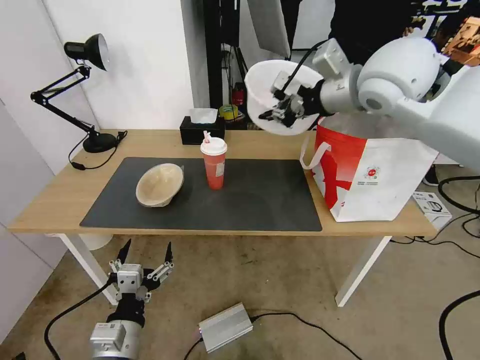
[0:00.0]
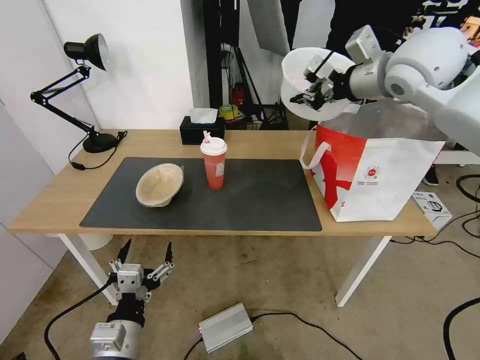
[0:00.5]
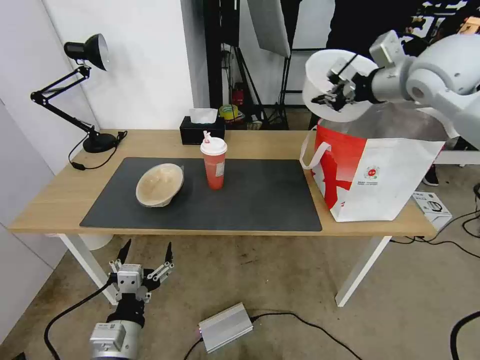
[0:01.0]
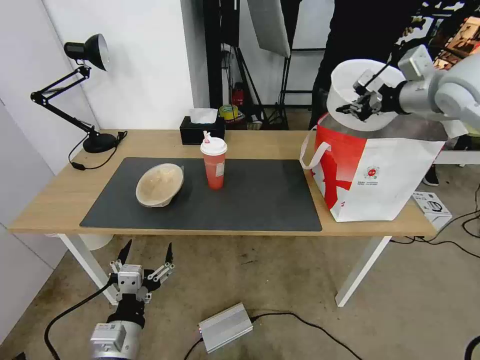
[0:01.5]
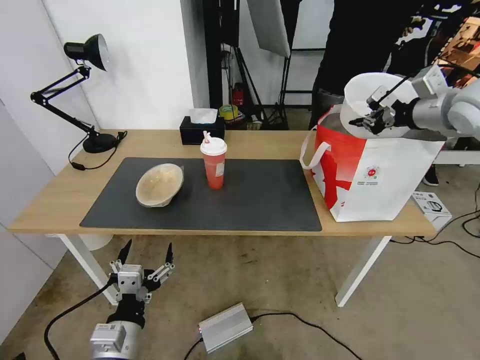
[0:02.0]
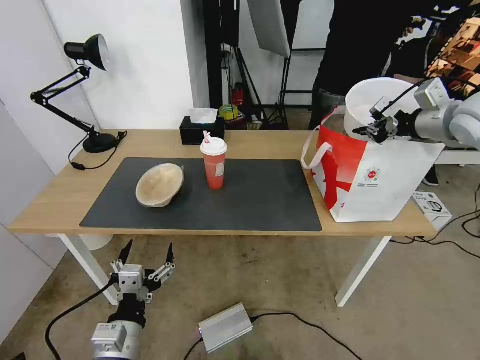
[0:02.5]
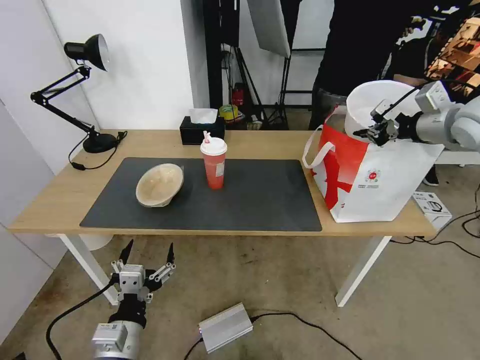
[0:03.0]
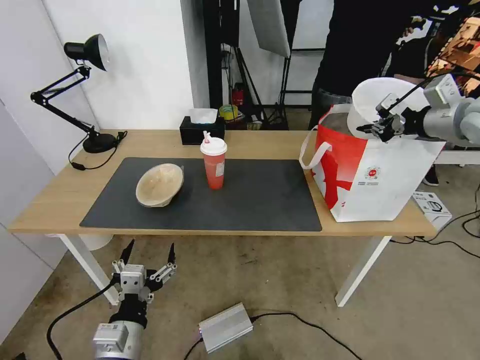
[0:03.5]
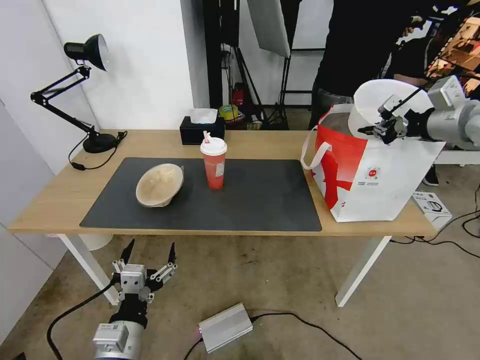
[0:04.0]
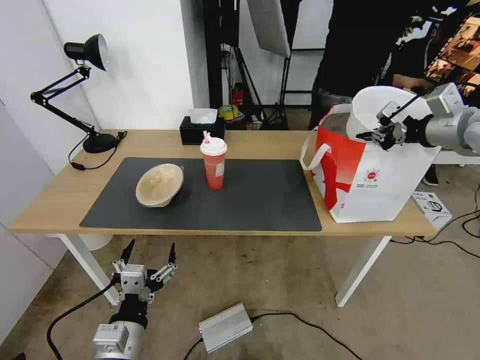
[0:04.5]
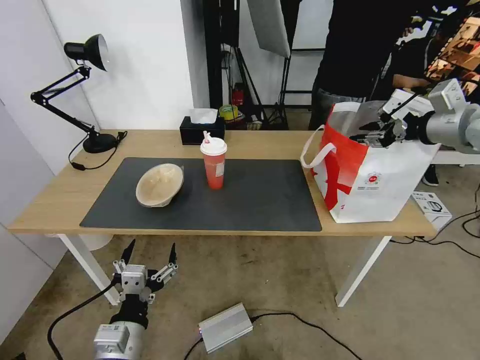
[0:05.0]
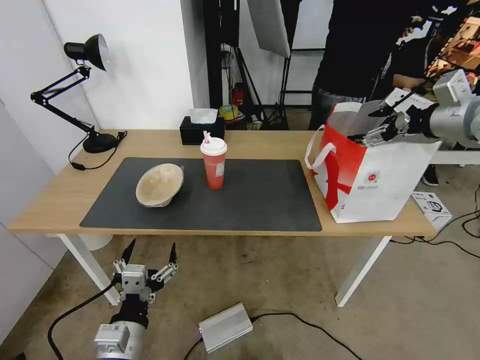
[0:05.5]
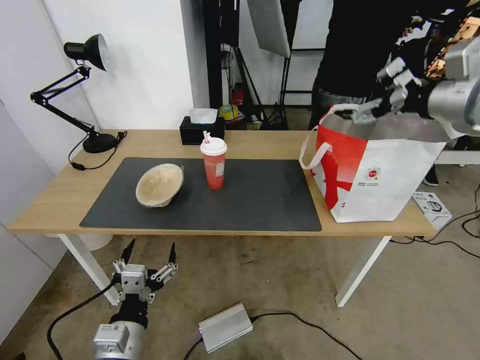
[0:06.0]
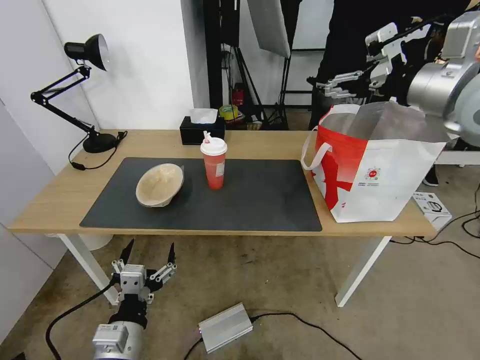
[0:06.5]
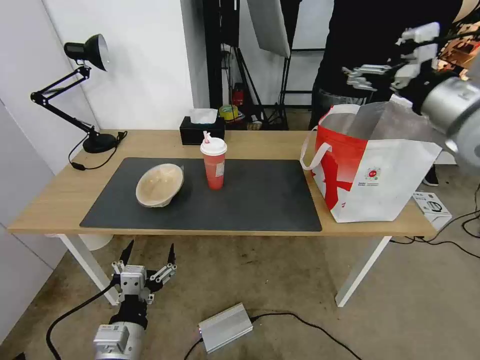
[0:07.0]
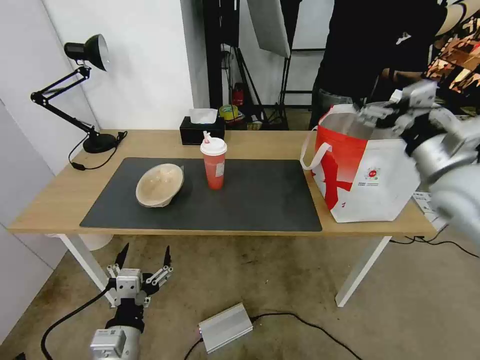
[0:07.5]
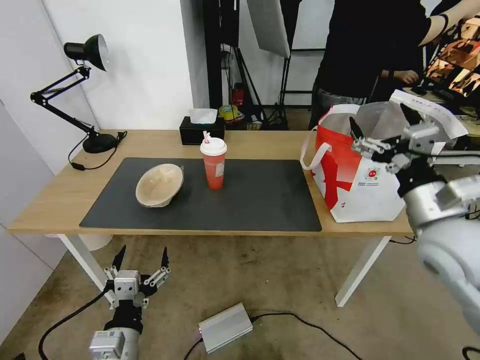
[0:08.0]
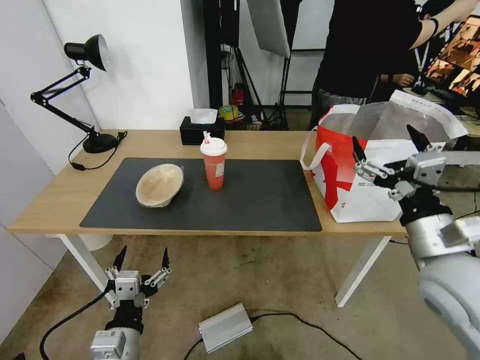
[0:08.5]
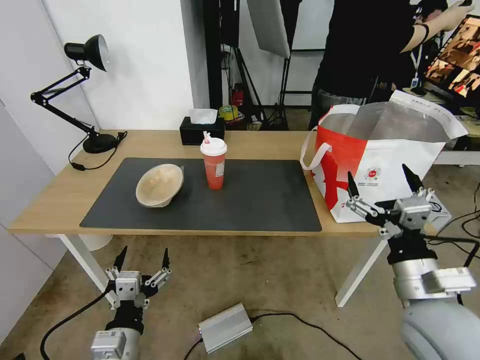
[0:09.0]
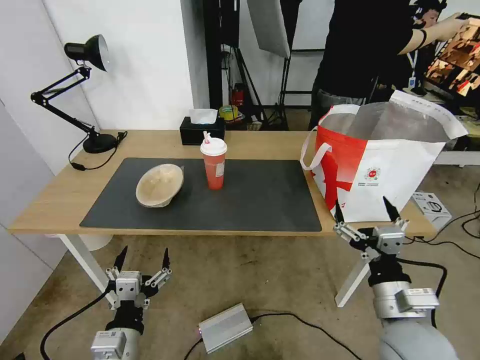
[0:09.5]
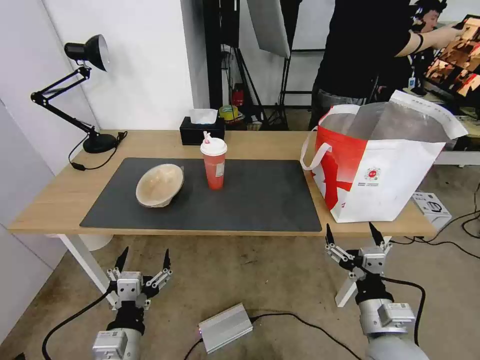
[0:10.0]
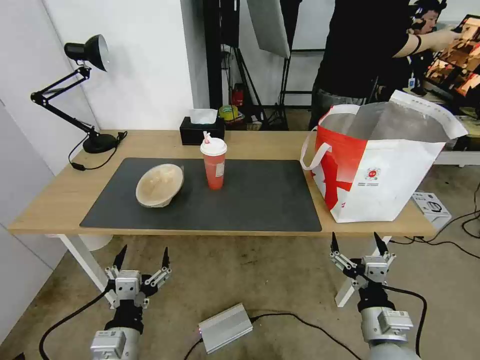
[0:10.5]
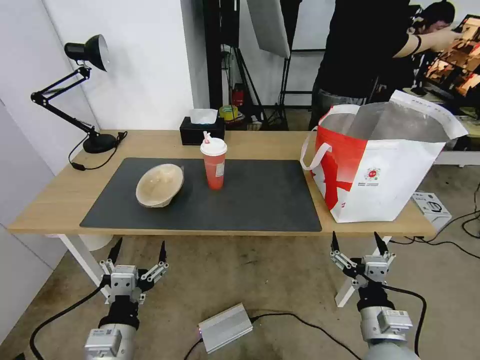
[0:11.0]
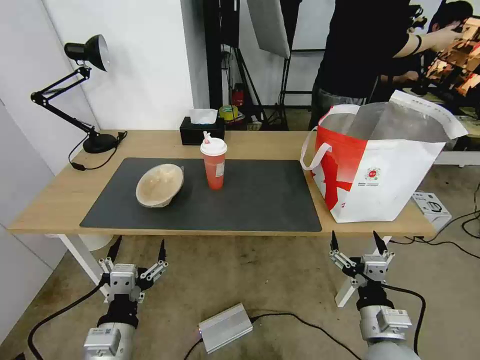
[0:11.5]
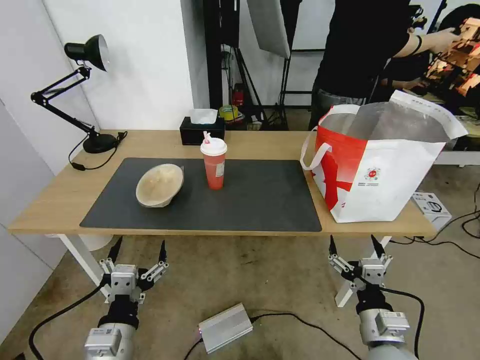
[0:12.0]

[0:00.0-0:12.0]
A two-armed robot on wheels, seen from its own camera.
Task of the whole recording: Pick up the trash from the table and place it into the takeout bag.
0.0 to 2.0 s: The right gripper goes roughly 20 cm to the right.
2.0 to 4.0 s: The grippers stay close to where they were, moving slightly.
4.0 to 6.0 s: The right gripper ends up some 5 cm from where it was, and opens.
6.0 to 8.0 s: The right gripper is displaced downward and backward by approximately 20 cm.
8.0 to 10.0 s: The right gripper shifts roughly 20 cm downward and backward.
10.0 to 12.0 s: The grippers move only a little.

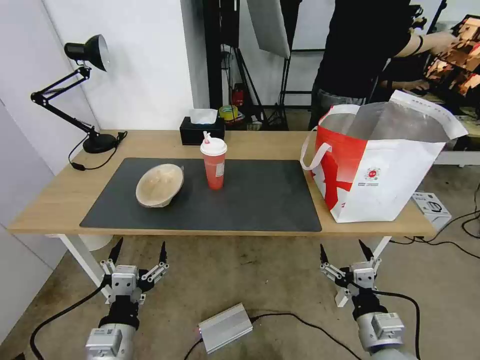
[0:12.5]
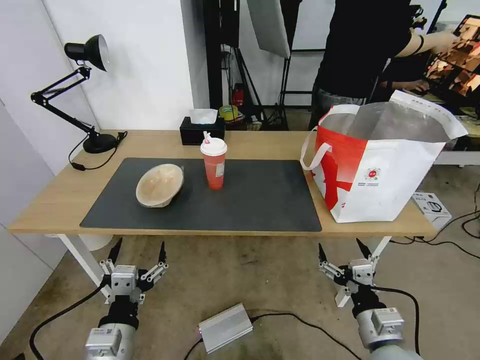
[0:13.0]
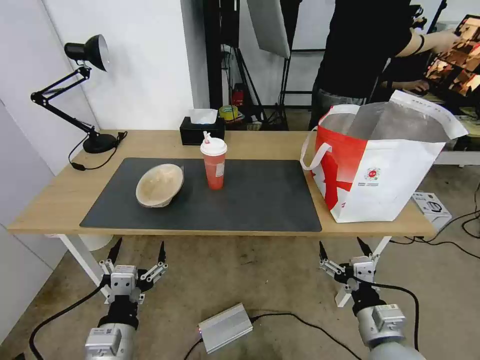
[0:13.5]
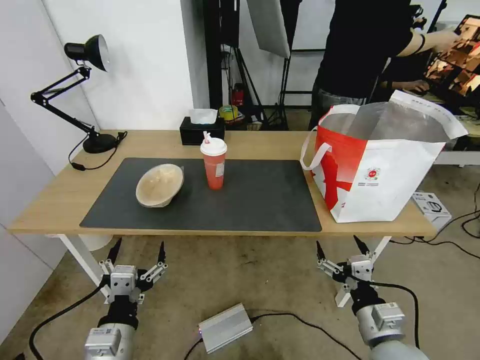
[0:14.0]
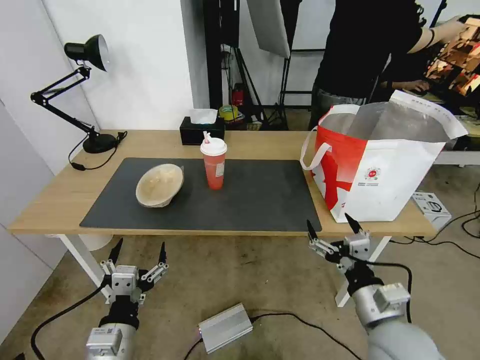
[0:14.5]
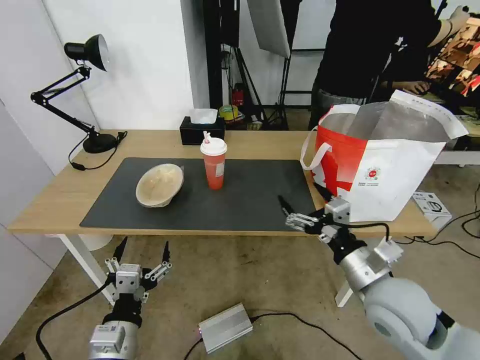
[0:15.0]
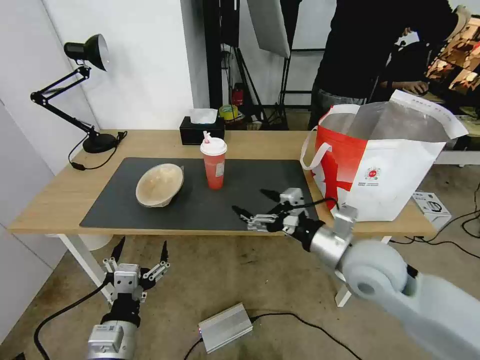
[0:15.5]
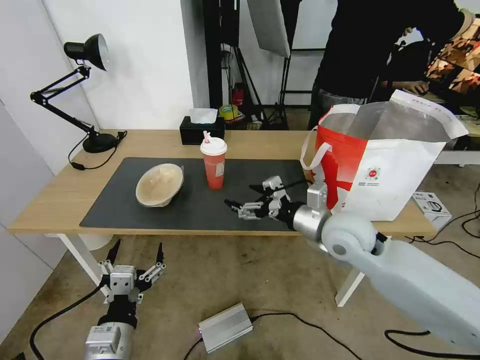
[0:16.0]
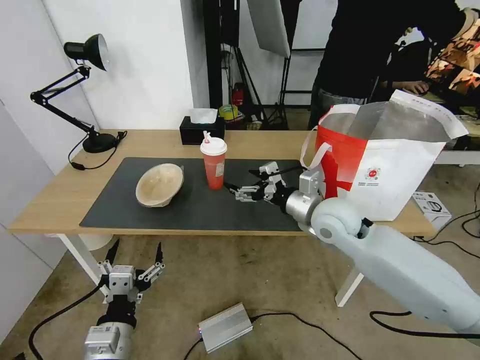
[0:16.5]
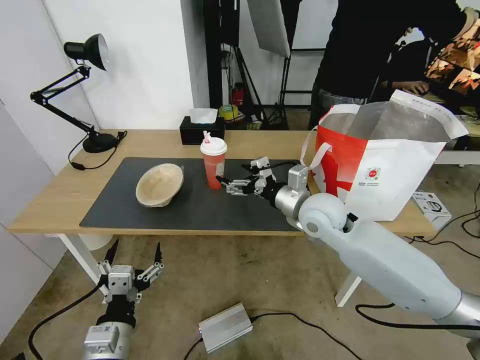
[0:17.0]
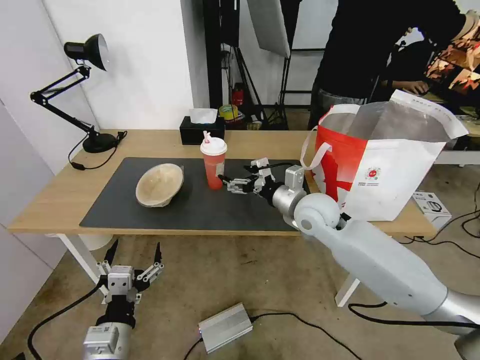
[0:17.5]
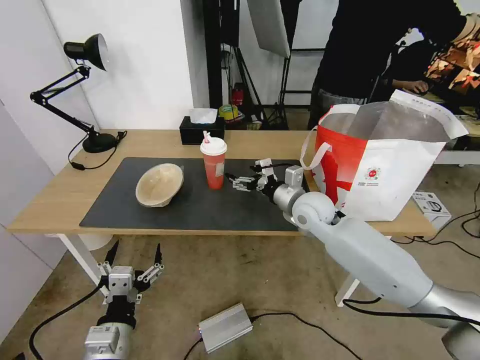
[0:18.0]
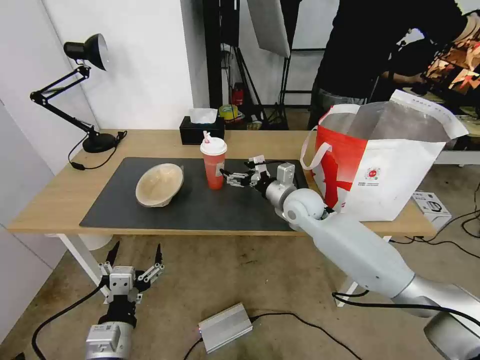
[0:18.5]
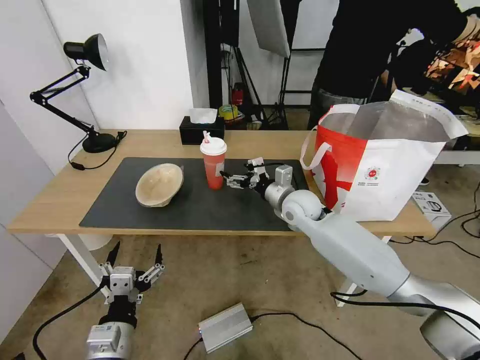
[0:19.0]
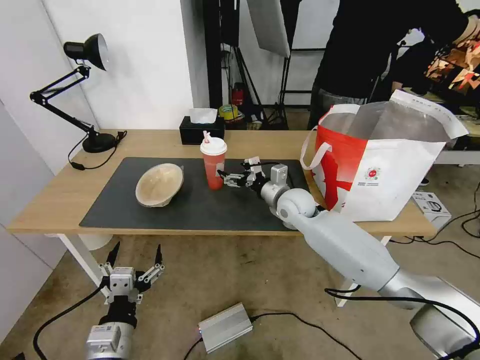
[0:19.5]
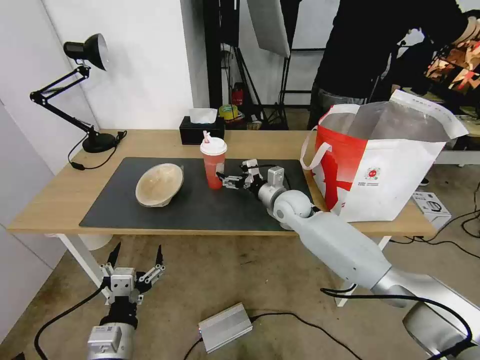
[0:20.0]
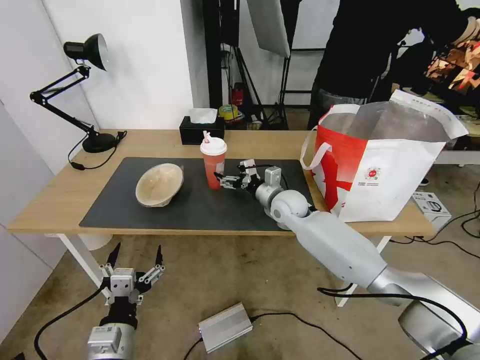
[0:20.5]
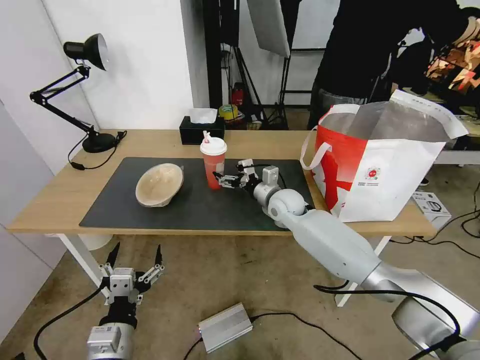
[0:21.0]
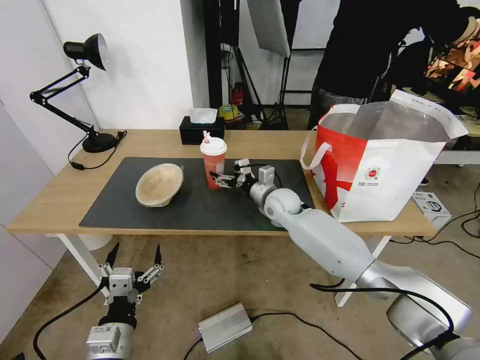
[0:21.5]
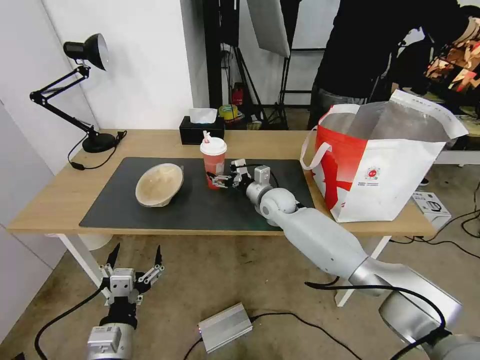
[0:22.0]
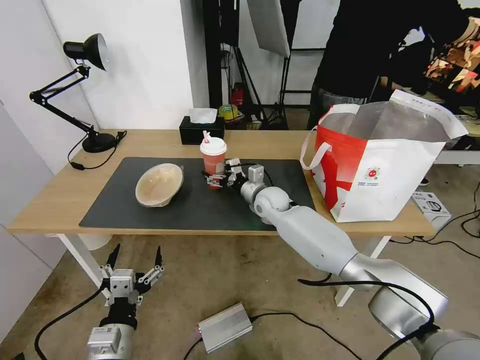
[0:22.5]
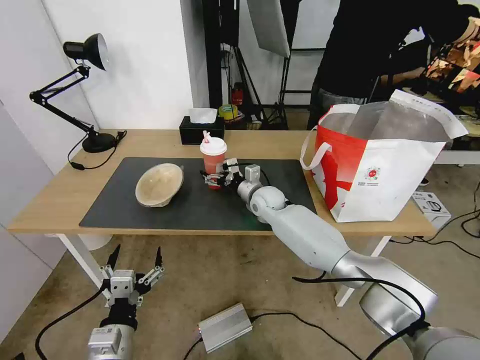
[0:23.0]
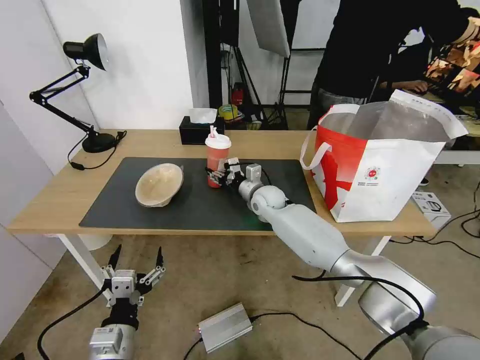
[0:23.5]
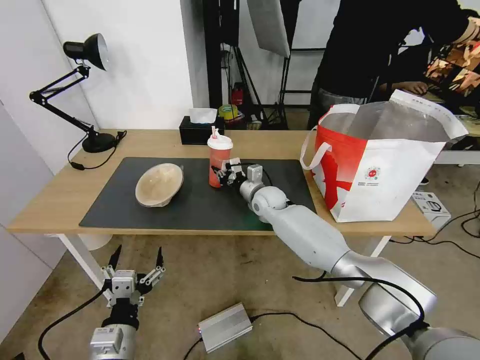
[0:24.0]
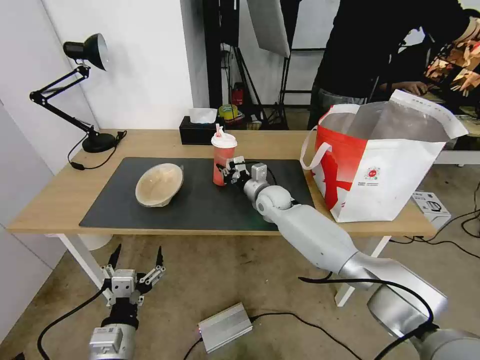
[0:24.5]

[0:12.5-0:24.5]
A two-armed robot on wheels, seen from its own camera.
Task of the whole recording: Pick up the trash from the table and place it into the takeout bag.
12.5 to 14.5 s: The right gripper is displaced upward by roughly 5 cm.
14.5 to 16.5 s: The right gripper moves forward, some 20 cm.
16.5 to 18.5 s: The right gripper moves forward and downward, roughly 10 cm.
18.5 to 20.5 s: The right gripper moves roughly 5 cm.
20.5 to 22.5 s: The right gripper shifts by some 5 cm.
22.5 to 24.5 s: The right gripper closes its fingers.

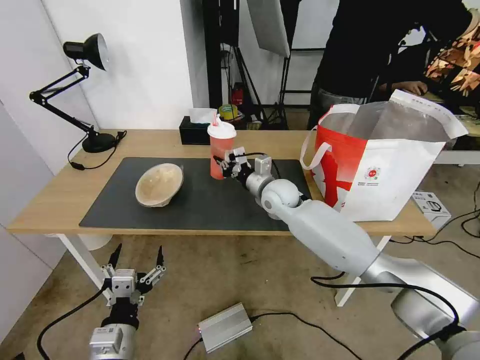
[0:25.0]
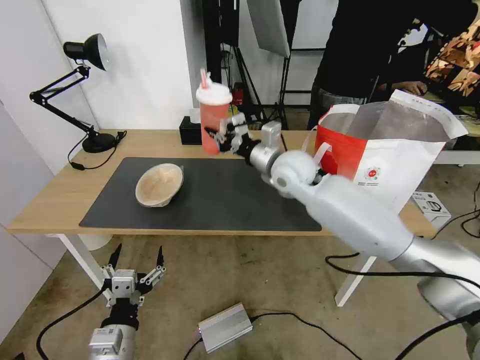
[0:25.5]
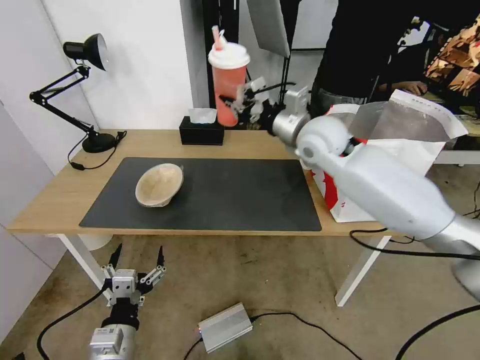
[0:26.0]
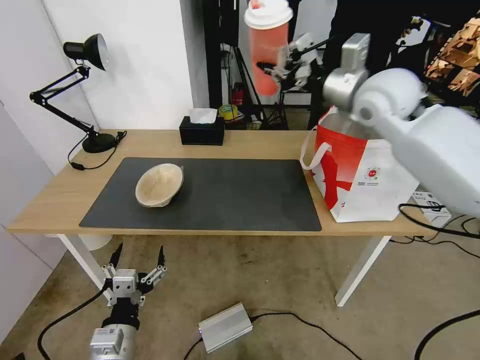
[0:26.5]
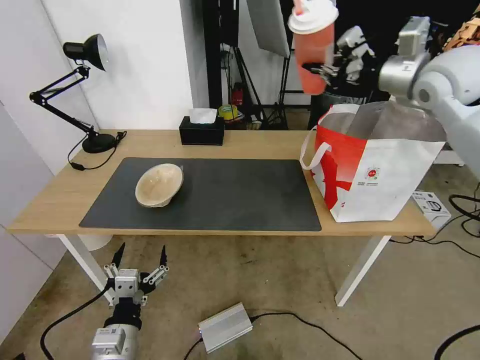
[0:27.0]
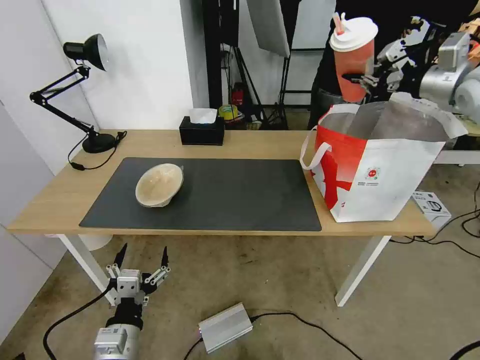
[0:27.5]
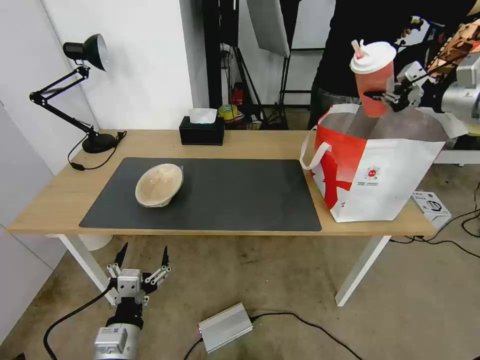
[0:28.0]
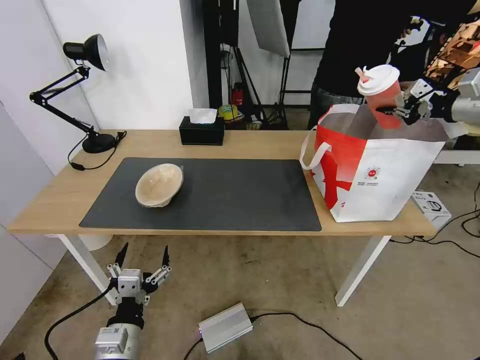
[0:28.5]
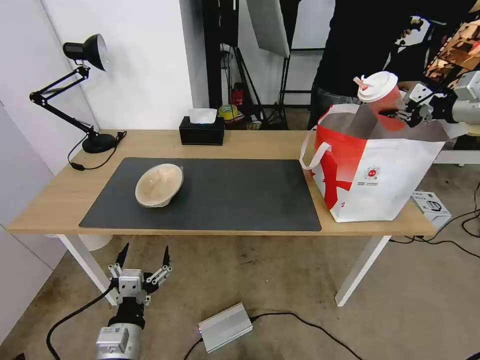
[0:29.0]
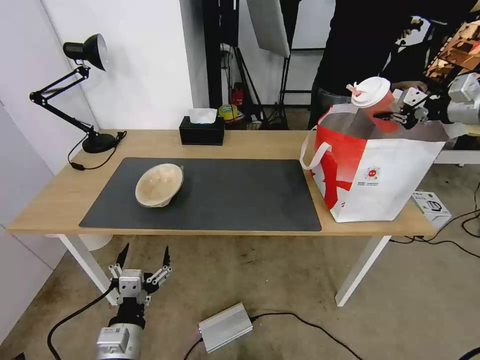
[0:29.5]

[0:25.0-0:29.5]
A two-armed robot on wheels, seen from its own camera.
Task of the whole recording: Pick up the trash from the table and place it into the takeout bag.
25.0 to 27.0 s: The right gripper shifts some 40 cm upward and to the right.
27.0 to 29.5 s: The right gripper heads to the right, covering some 20 cm.
